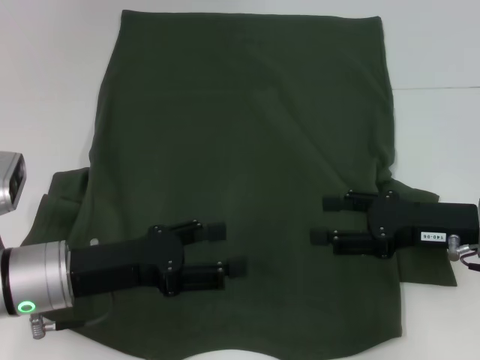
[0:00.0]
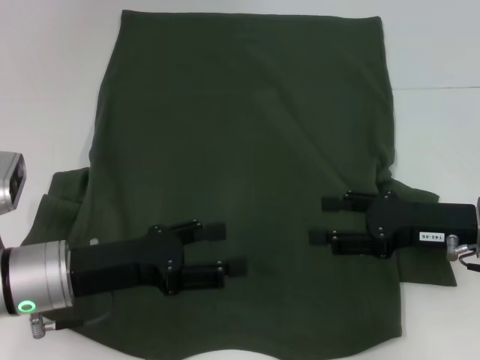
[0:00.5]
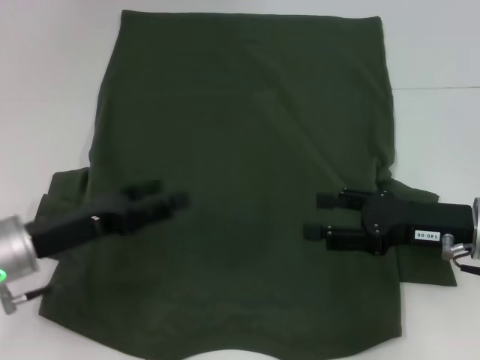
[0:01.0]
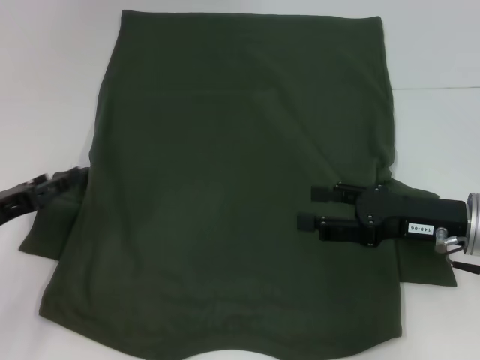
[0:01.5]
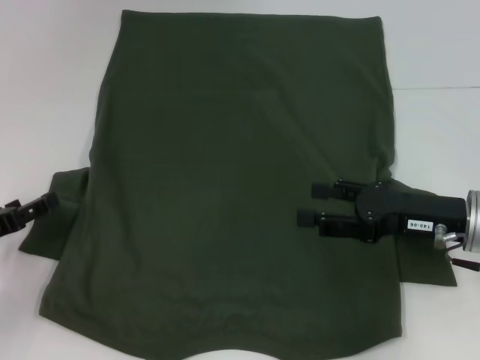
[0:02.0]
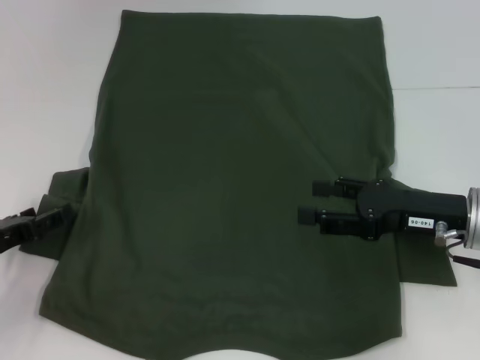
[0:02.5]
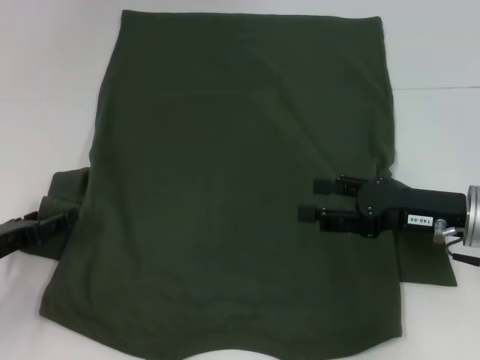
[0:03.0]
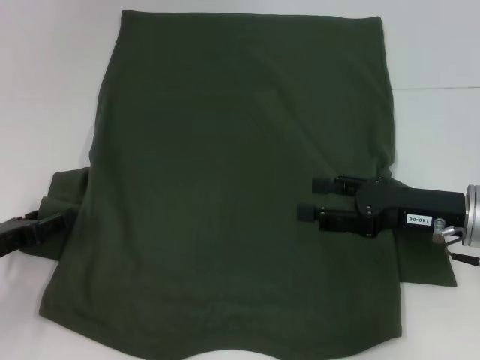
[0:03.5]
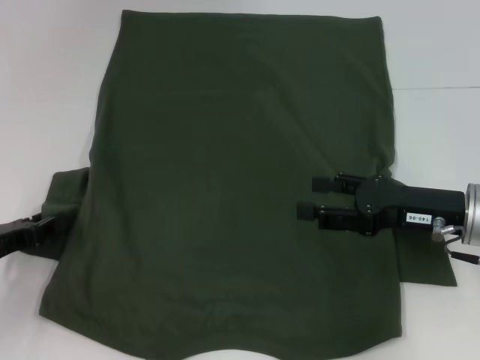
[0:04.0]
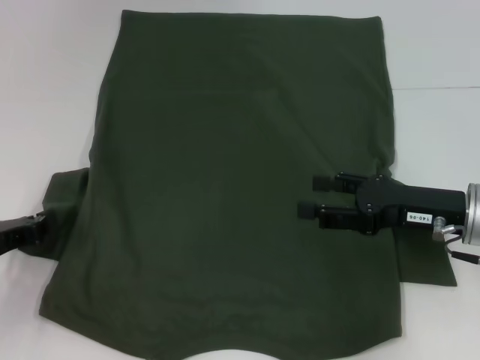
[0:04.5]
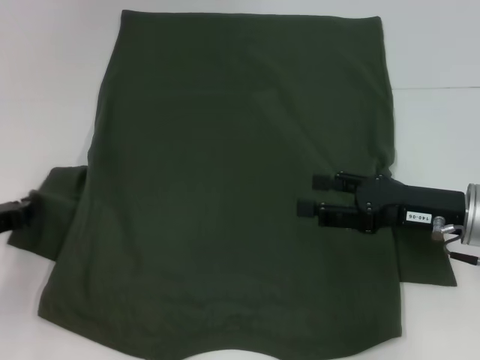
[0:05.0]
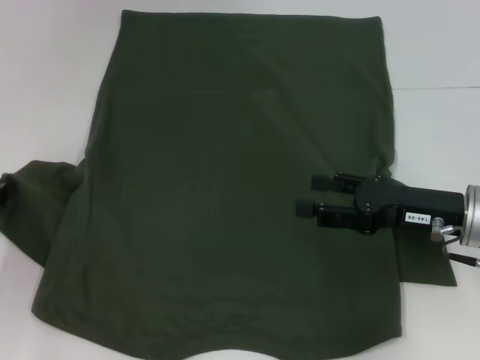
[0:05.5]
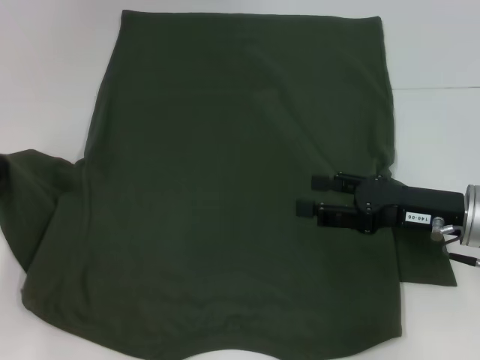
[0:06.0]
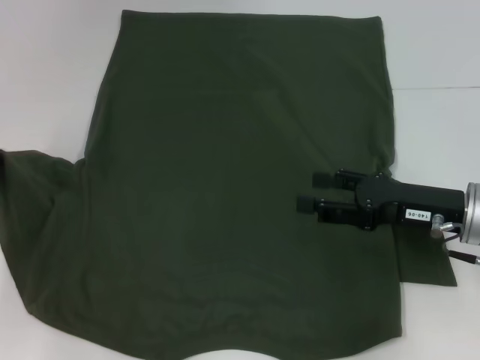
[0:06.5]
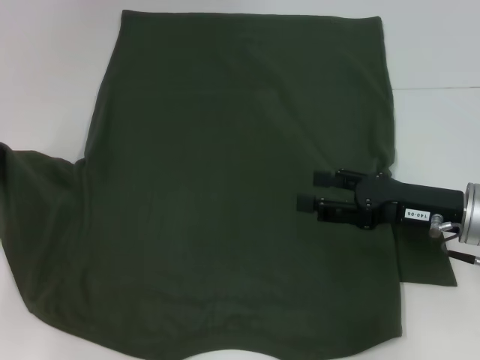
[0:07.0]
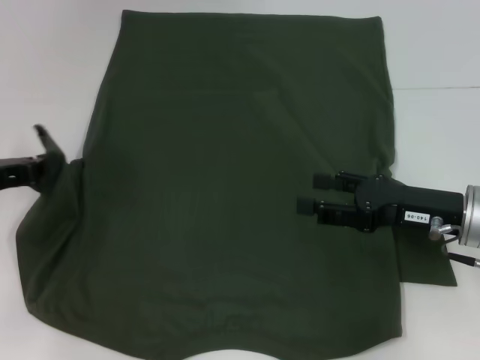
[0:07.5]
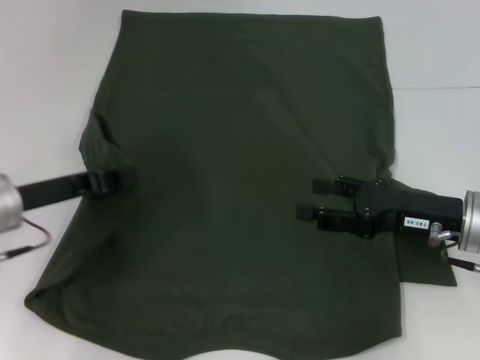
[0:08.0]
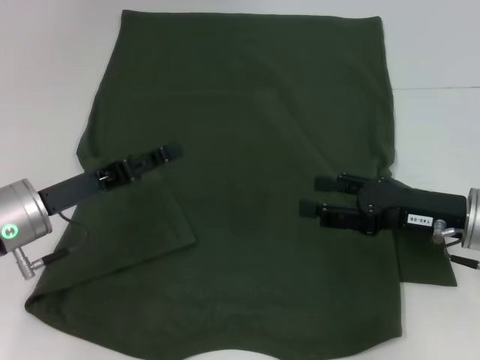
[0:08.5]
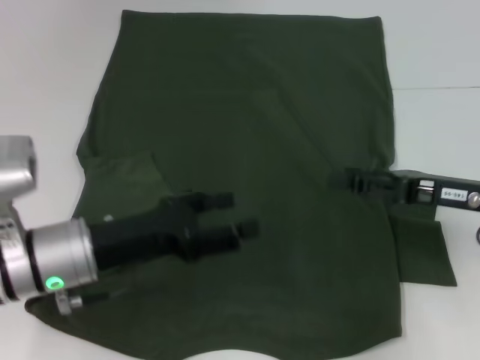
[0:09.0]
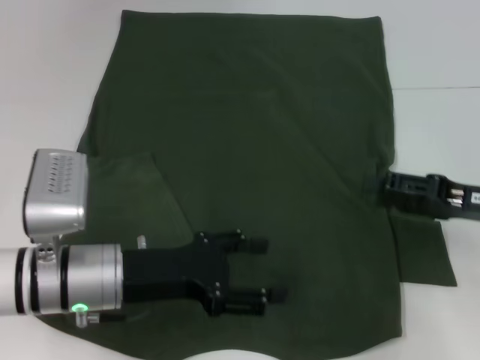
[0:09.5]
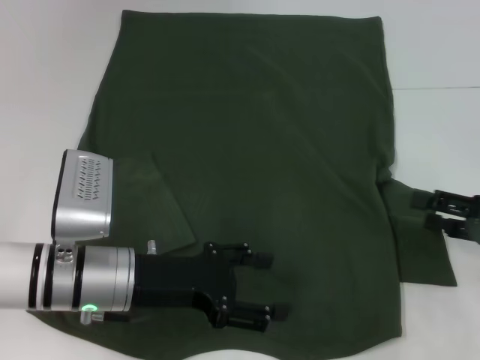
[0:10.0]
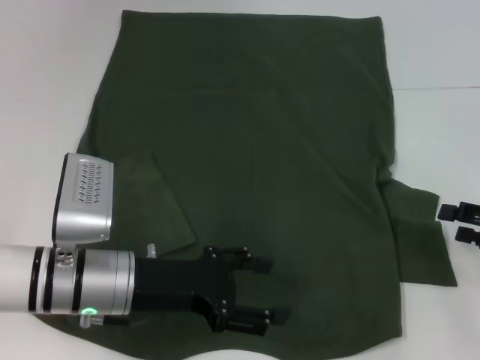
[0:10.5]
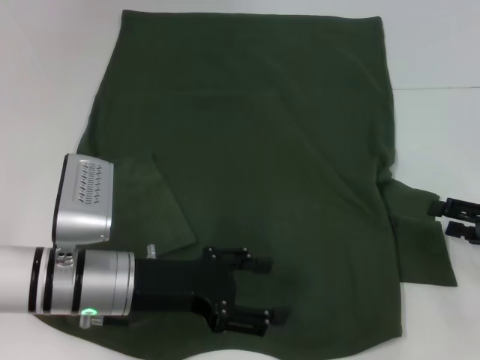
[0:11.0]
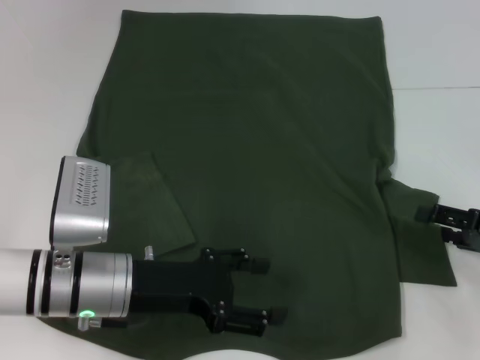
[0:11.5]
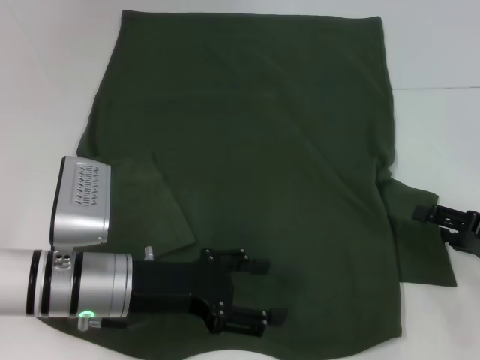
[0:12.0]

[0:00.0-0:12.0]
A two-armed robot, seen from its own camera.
Step, 0:00.0 to 0:08.0: Fold the bottom left sleeve with your left hand.
0:00.0 to 0:02.0: The left gripper heads to the left, covering approximately 15 cm.
0:02.0 to 0:04.0: The grippers stay close to where they were, moving slightly.
0:04.0 to 0:06.0: The left gripper changes place by roughly 5 cm, and closes up.
0:06.0 to 0:08.0: The left gripper moves to the right, approximately 10 cm.
0:08.0 to 0:10.0: The two grippers go roughly 10 cm to the right. The left gripper opens.
0:10.0 to 0:12.0: The grippers move only a little.

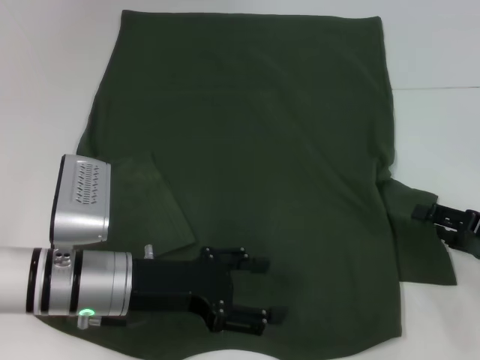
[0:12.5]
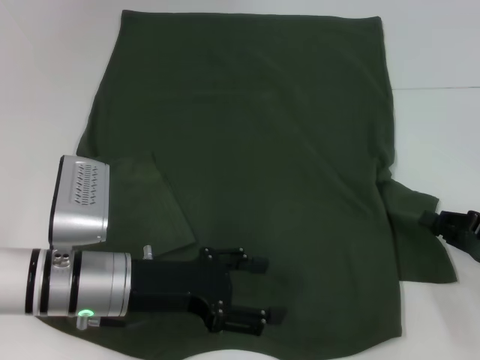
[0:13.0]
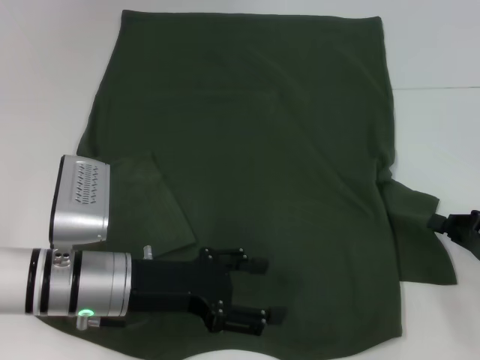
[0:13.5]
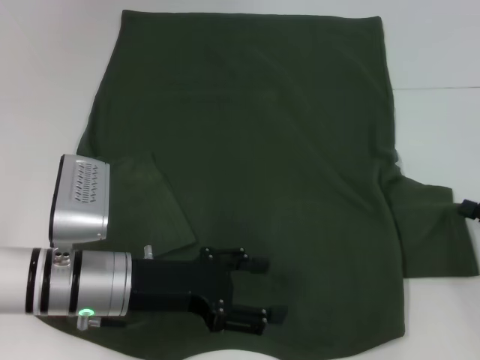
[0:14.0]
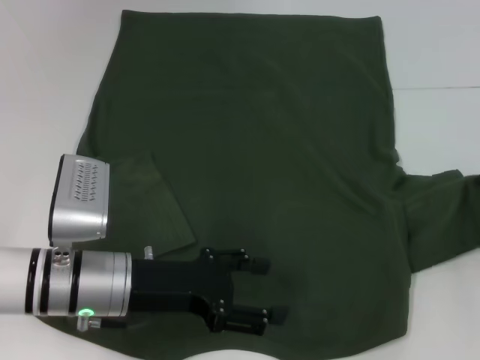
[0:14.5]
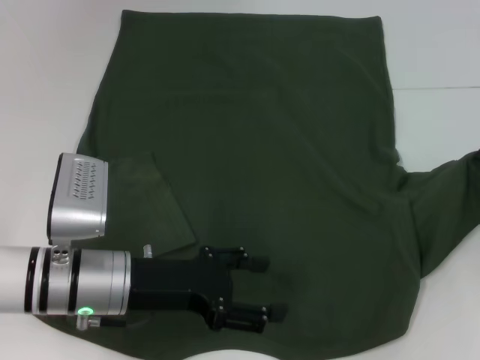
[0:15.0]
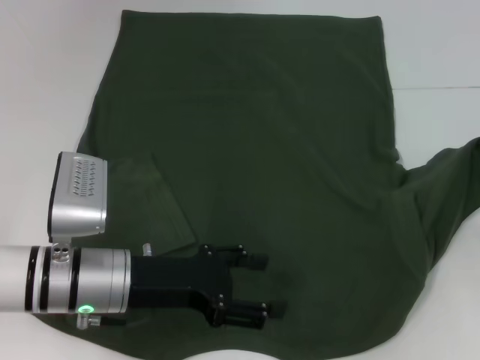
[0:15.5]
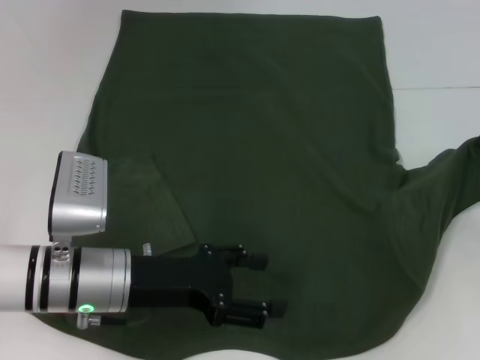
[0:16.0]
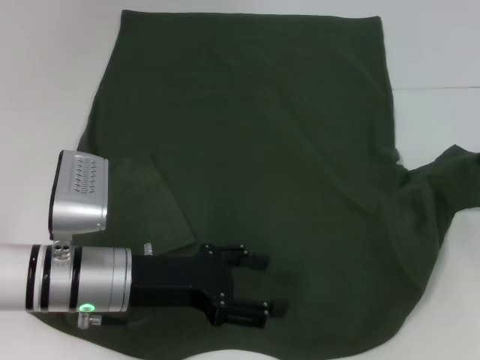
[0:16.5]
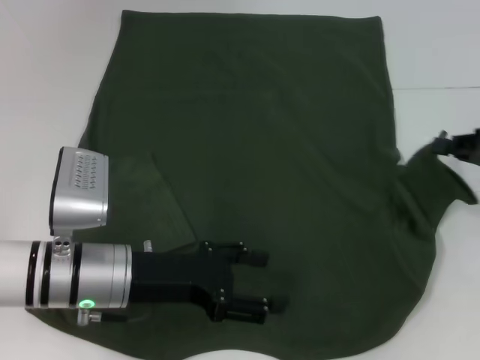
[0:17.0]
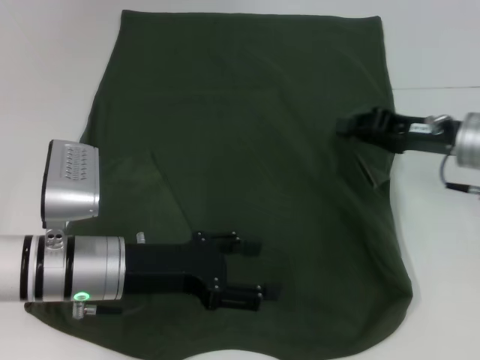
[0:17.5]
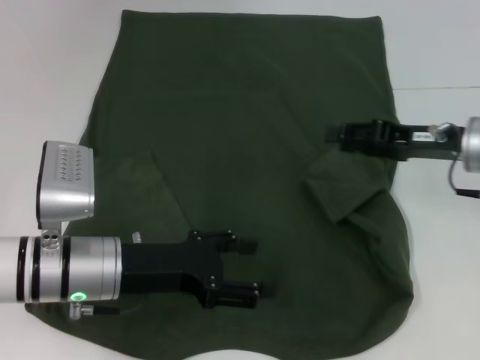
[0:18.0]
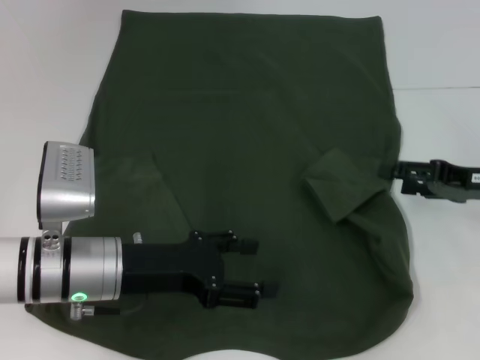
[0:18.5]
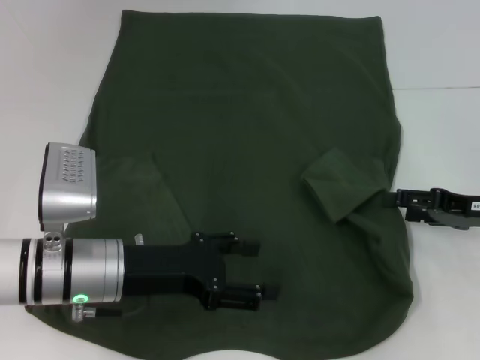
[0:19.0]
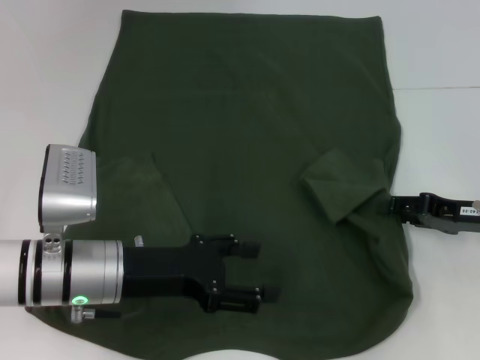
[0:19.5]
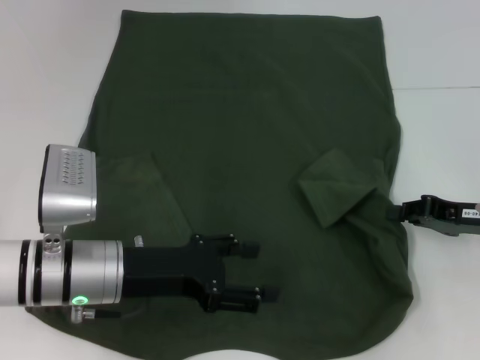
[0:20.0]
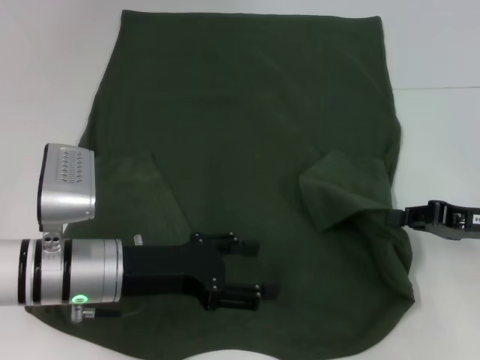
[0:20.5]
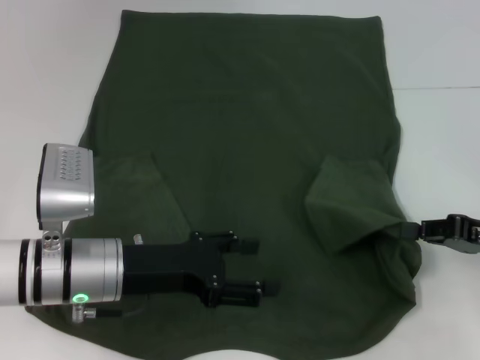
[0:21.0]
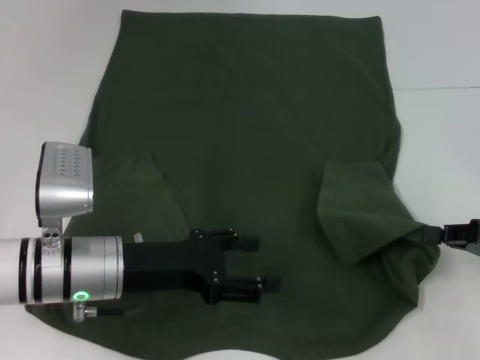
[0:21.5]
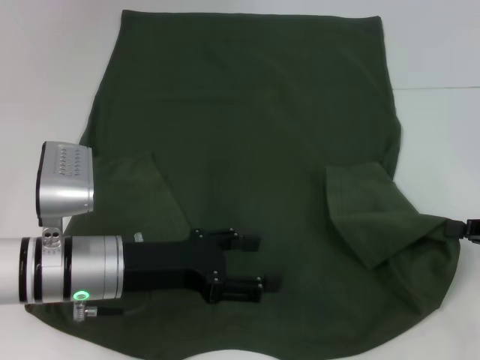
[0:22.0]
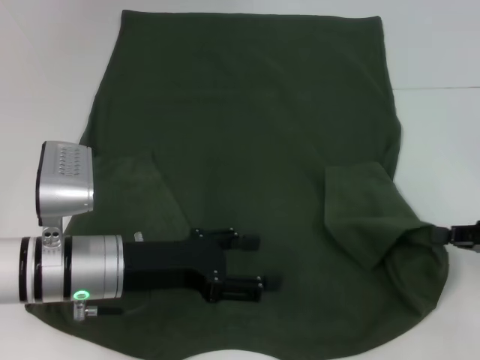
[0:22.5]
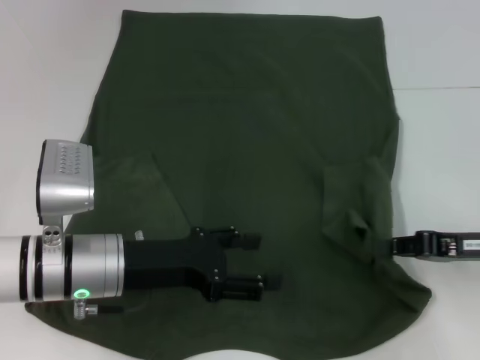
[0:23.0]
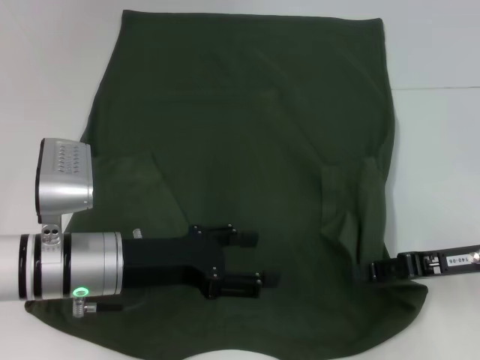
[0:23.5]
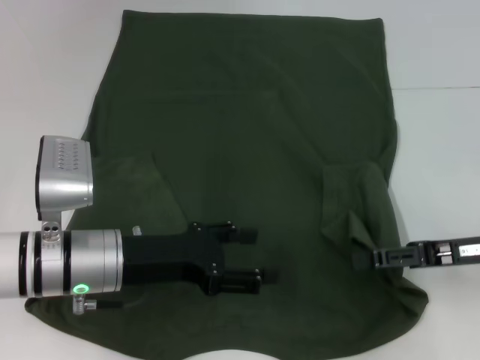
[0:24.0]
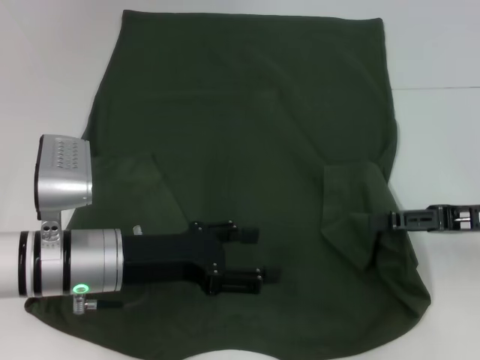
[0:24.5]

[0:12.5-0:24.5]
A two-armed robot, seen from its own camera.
0:12.5 to 0:14.5: The right gripper moves to the right, some 5 cm, and closes its fingers.
0:14.5 to 0:16.5: The grippers make only small movements.
0:16.5 to 0:18.5: The right gripper shifts approximately 5 cm to the left, and opens up.
0:18.5 to 0:20.5: The right gripper closes.
0:22.5 to 0:24.5: The right gripper changes place by approximately 5 cm, and opens.

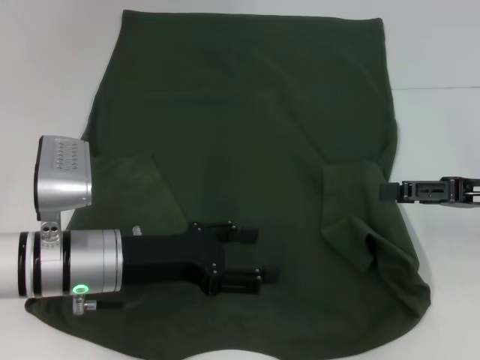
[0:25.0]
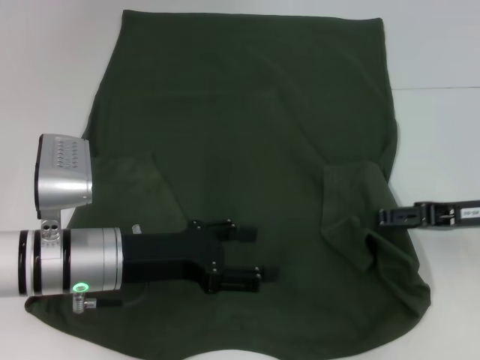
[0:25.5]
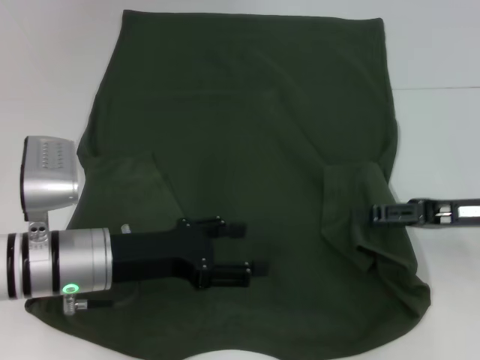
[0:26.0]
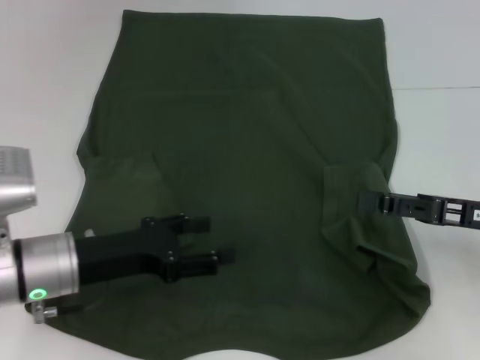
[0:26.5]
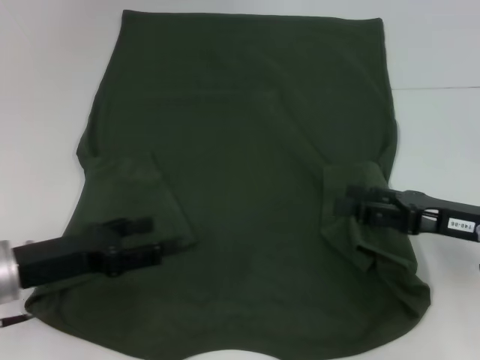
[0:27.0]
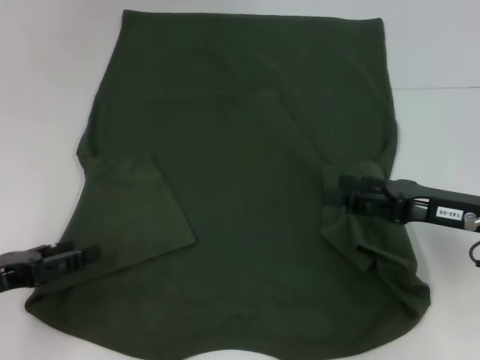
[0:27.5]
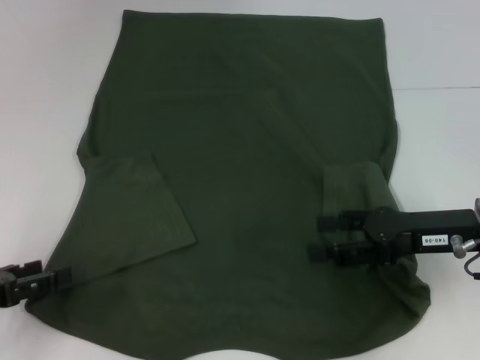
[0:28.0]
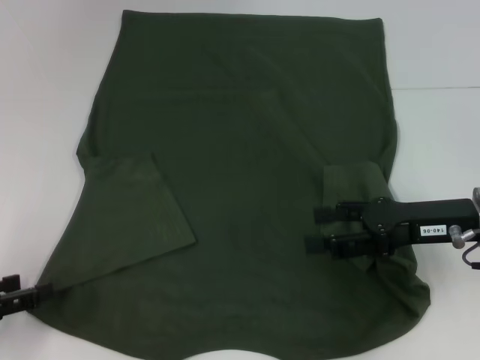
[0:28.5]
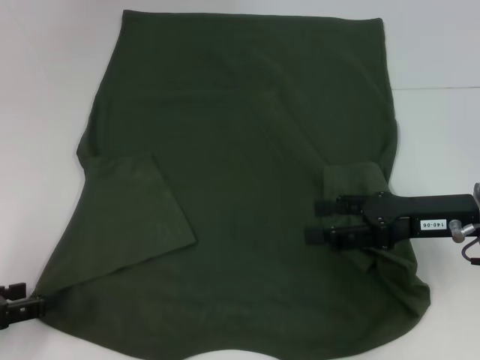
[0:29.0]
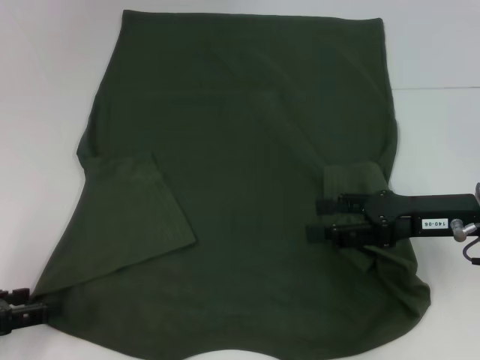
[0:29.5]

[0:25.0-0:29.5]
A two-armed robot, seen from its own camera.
0:25.0 to 0:27.0: The left gripper goes approximately 10 cm to the left; the right gripper ends up about 5 cm from where it was.
0:27.0 to 0:29.5: The left gripper moves to the left, roughly 10 cm.
